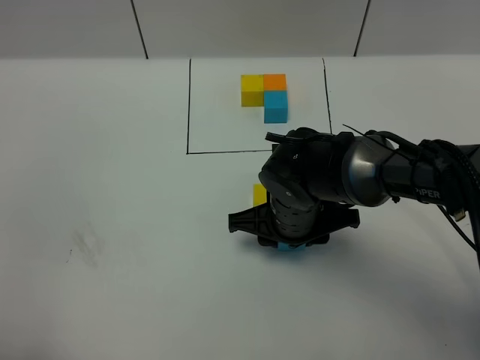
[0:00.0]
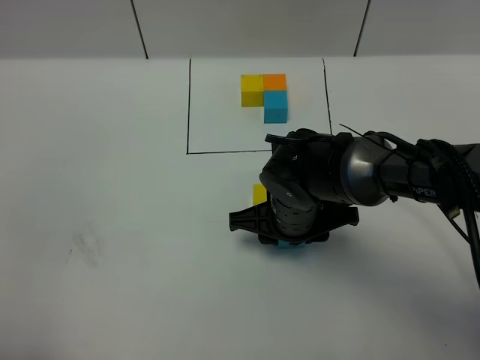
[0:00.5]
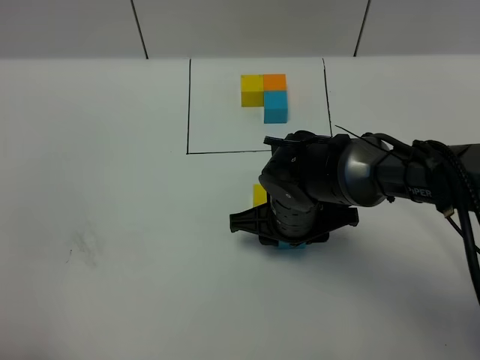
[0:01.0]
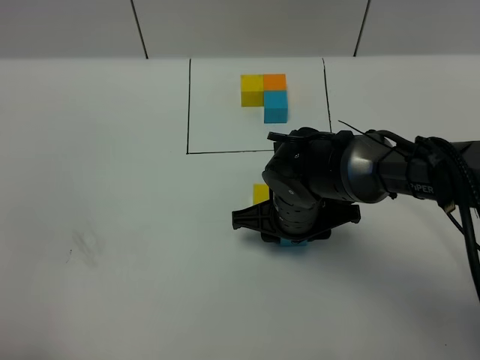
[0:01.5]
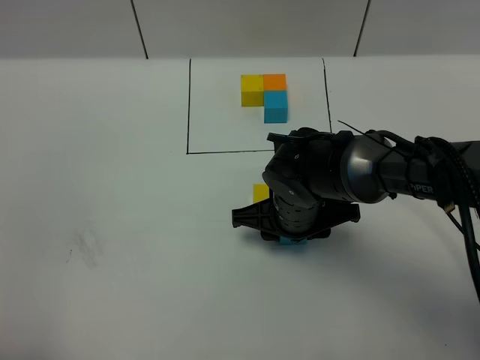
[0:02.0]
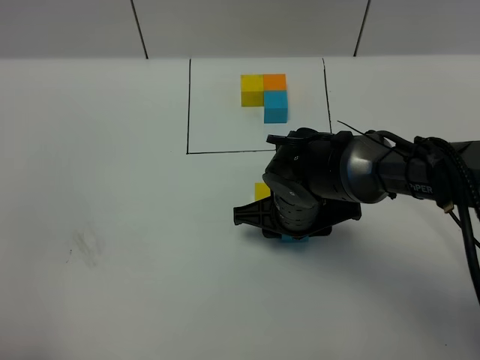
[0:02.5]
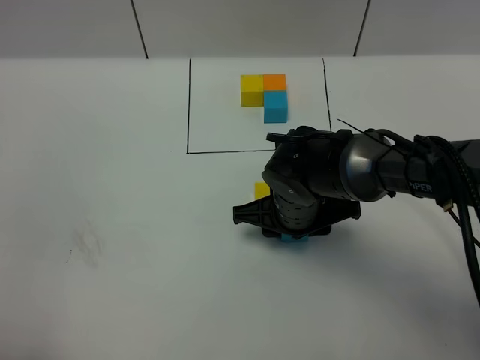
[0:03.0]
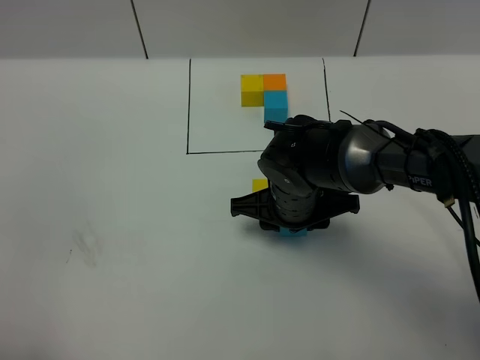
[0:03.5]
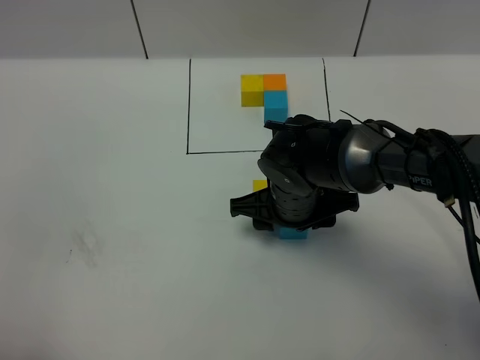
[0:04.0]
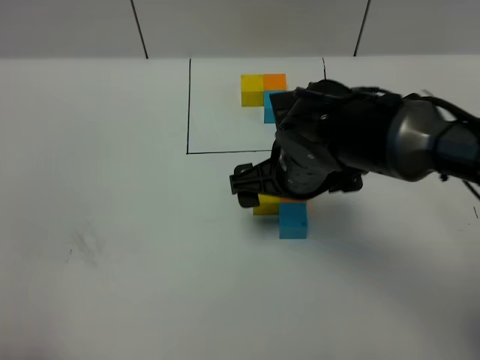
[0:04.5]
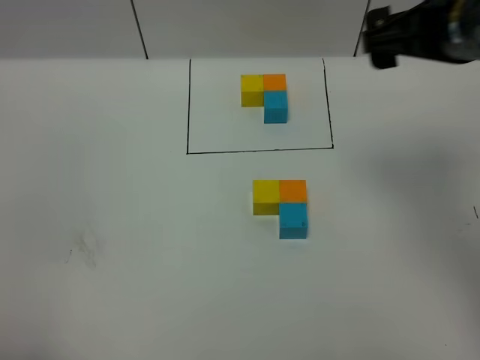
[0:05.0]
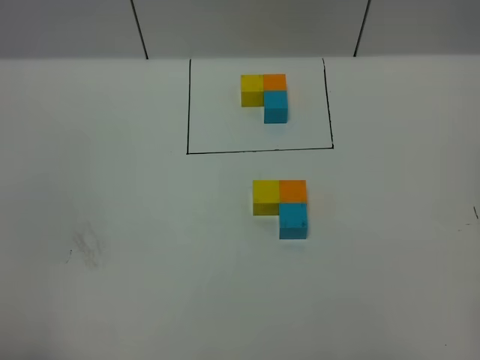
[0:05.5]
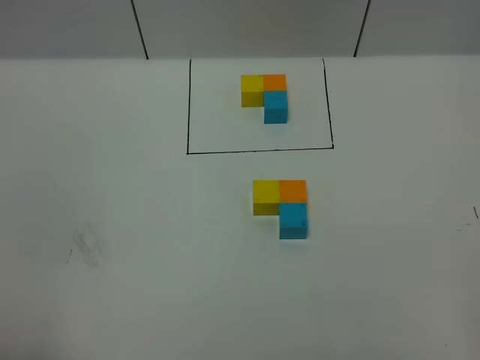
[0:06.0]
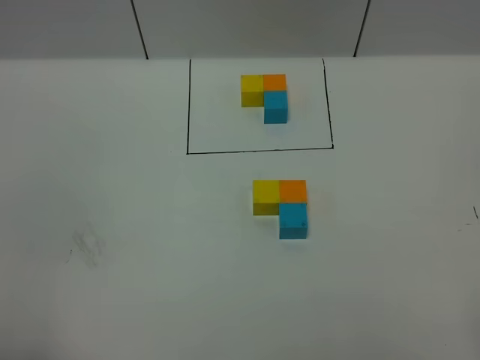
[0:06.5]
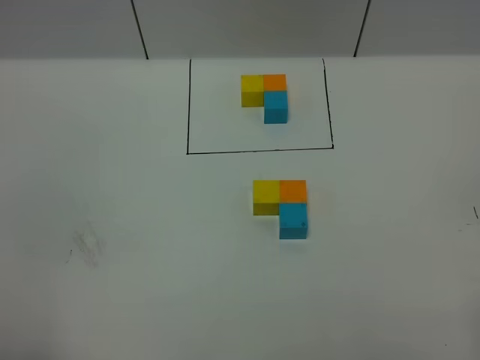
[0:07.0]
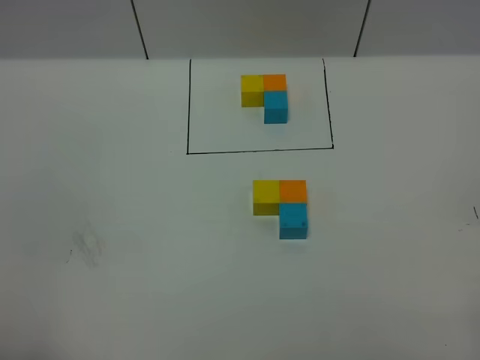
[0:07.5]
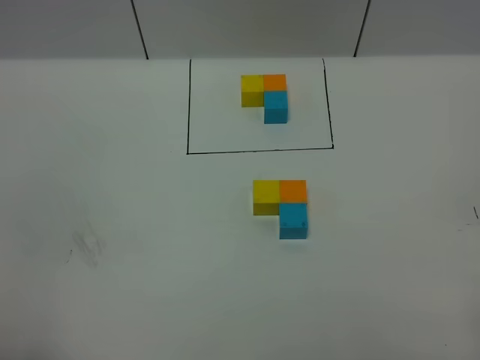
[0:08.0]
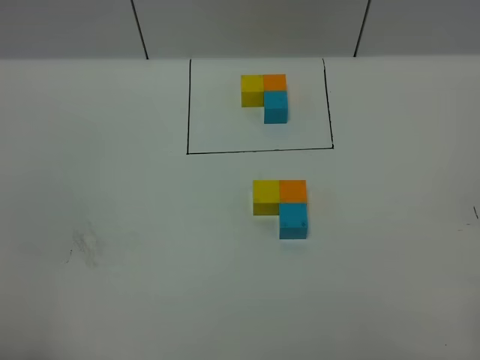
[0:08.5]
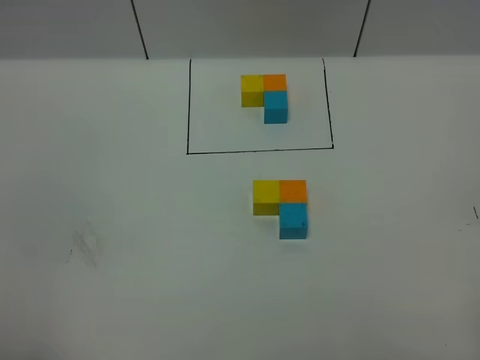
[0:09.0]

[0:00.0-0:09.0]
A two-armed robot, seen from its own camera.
Task of the whole recording: According to the building block template in front, assemble the scattered blocks together.
Step, 0:00.0 to 0:04.0: Put the blue cube in the front of the orange cube.
0:00.0 to 0:02.0: There are only small adjustments of the grippers.
0:02.0 to 0:04.5: The right gripper is displaced upward by some 10 cm, and opens its fingers.
0:04.5 to 0:07.0: The right gripper moves backward and to the right, some 40 cm.
